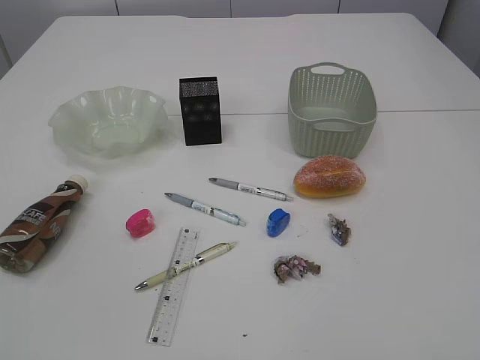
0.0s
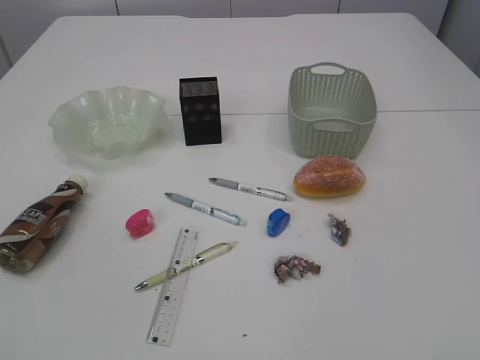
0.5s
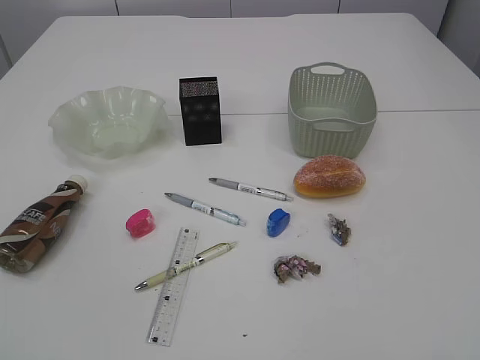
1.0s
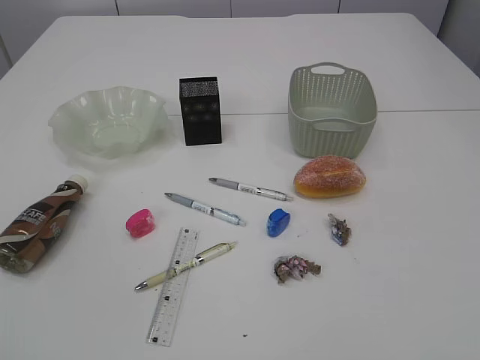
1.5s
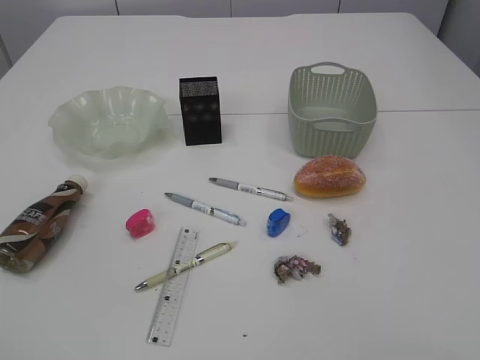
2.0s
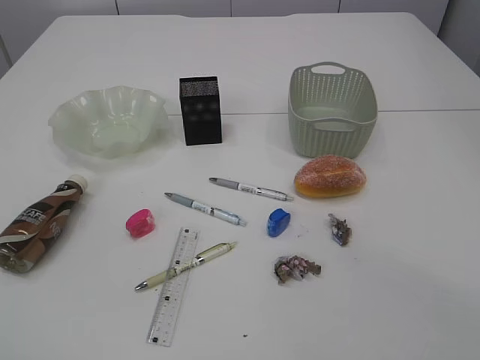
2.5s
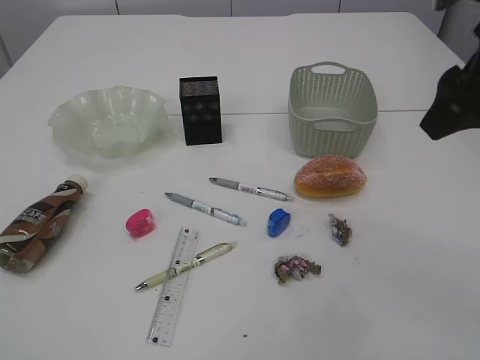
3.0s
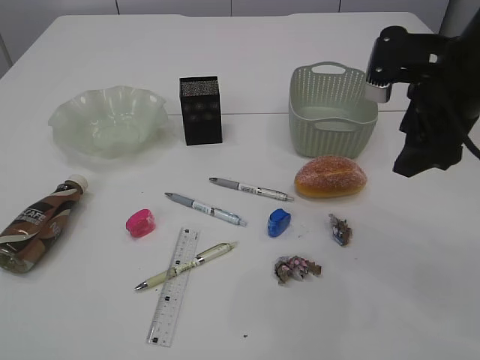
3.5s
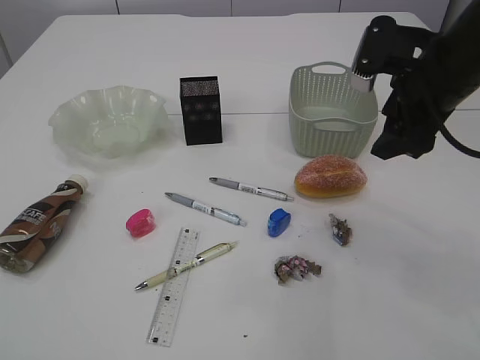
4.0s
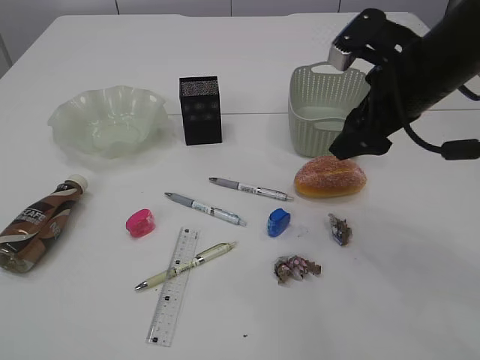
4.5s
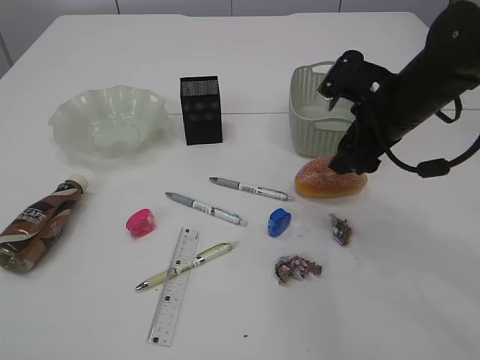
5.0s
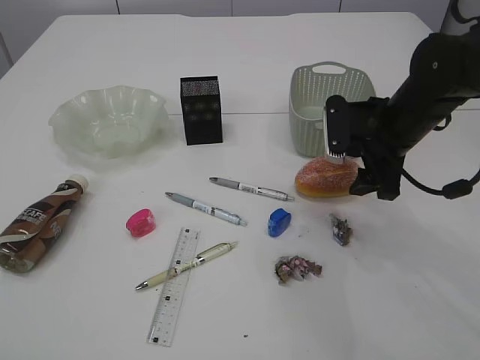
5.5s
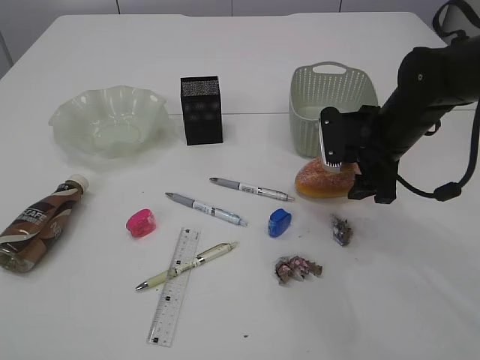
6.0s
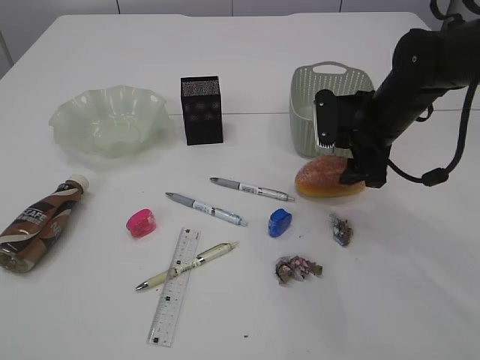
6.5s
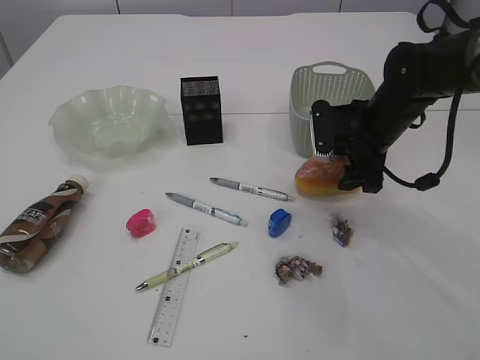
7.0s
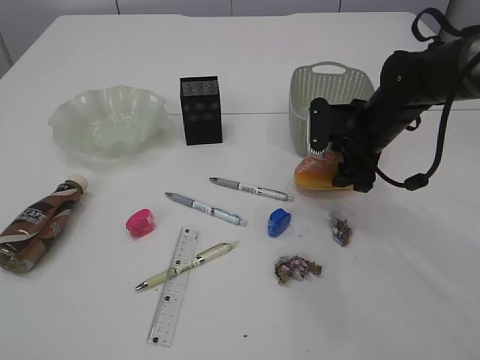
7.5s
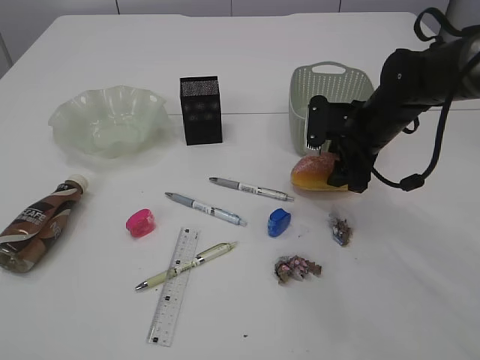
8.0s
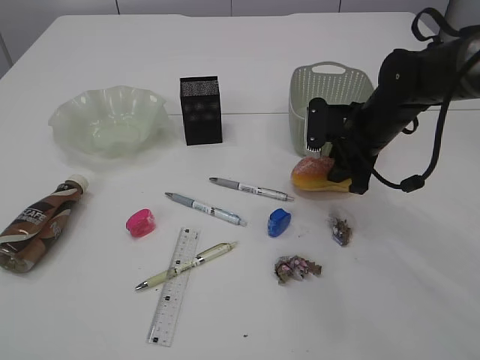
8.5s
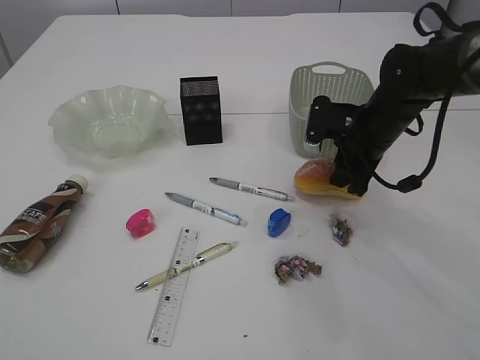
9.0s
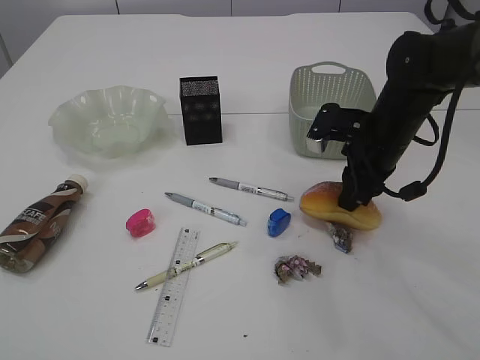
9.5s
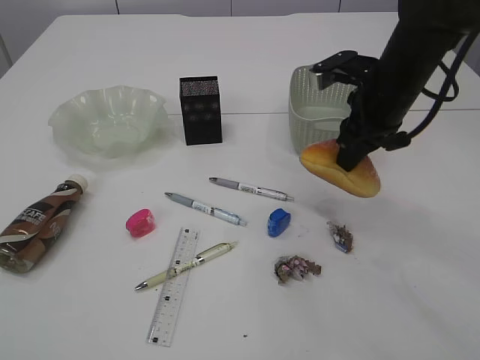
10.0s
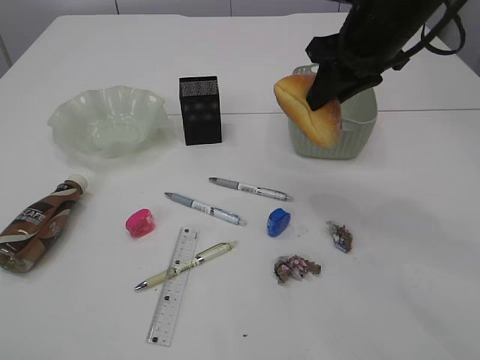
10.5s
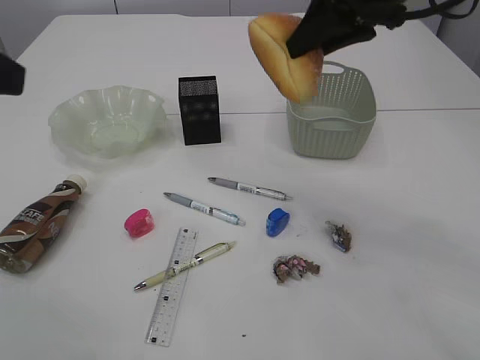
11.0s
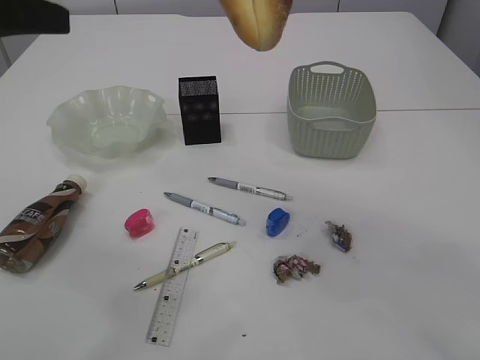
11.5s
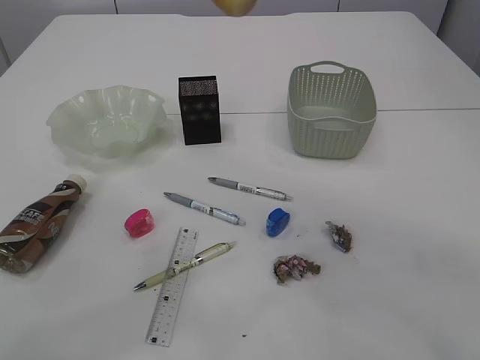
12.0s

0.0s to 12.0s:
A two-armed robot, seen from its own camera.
2.0s to 4.0s: The right gripper goes roughly 30 cm forward.
4.0s to 6.0s: The right gripper is displaced downward and forward by approximately 10 cm.
6.0s to 8.0s: The grippers make only small movements.
8.0s to 10.0s: The right gripper heads upward, covering some 5 cm, and closes.
10.0s to 12.0s: The left gripper heads forward, covering roughly 25 cm, while the right gripper heads upward, covering some 20 cm.

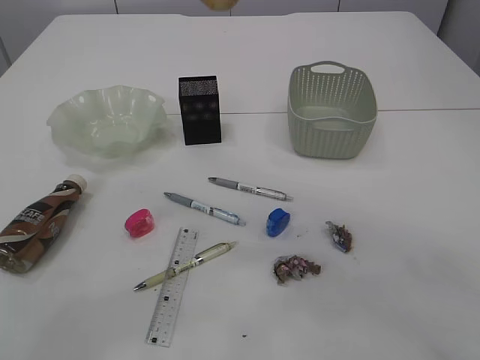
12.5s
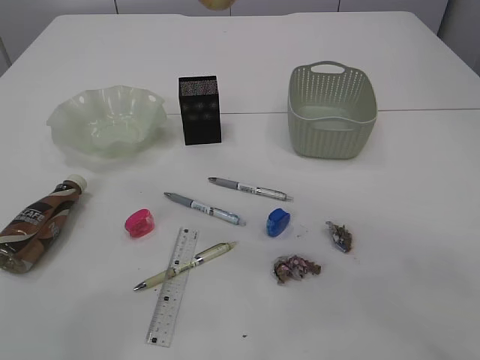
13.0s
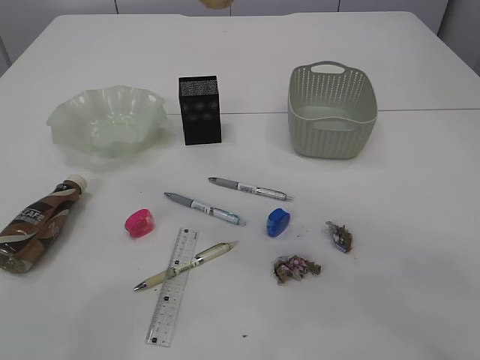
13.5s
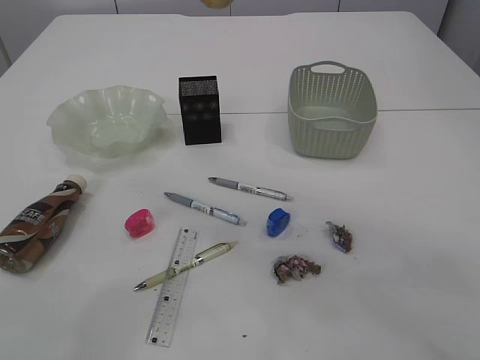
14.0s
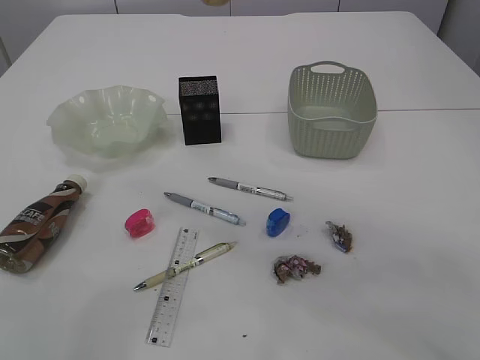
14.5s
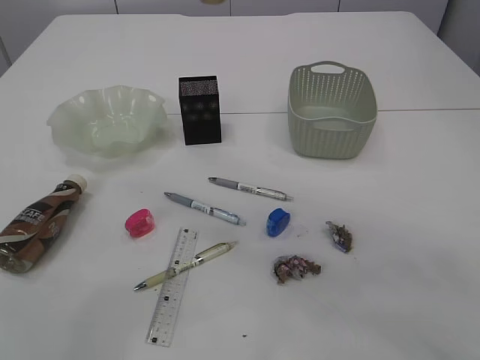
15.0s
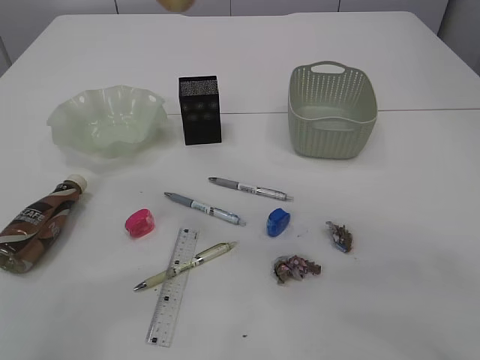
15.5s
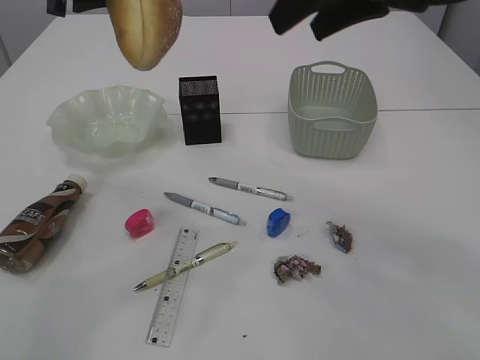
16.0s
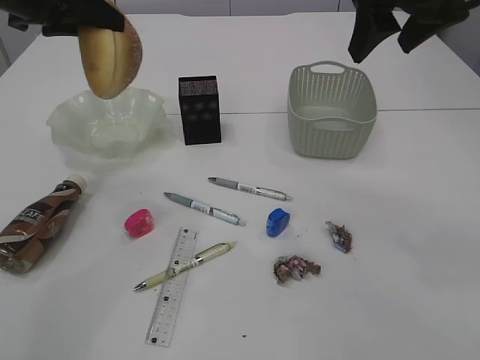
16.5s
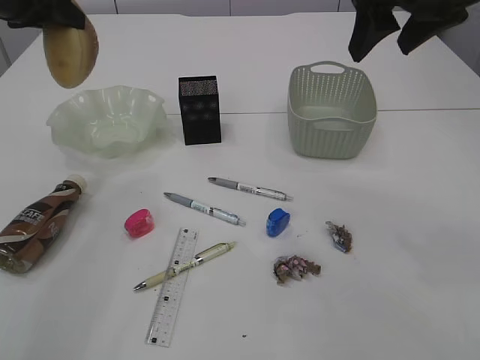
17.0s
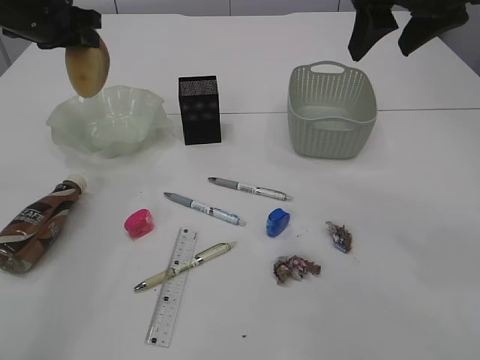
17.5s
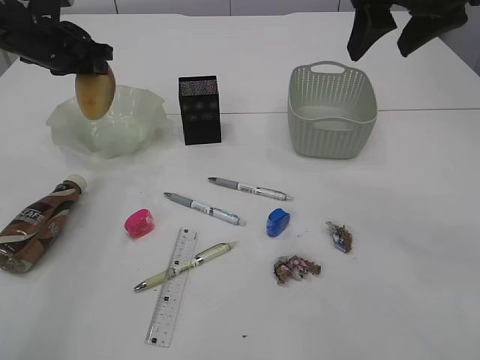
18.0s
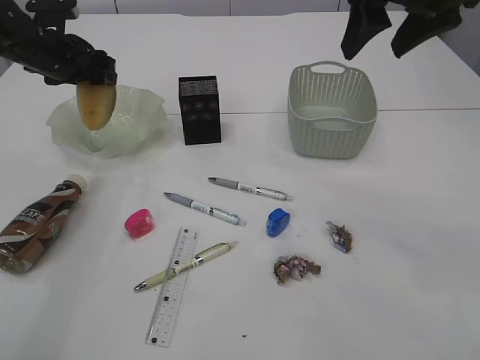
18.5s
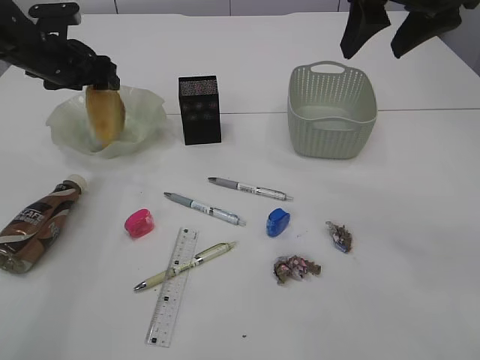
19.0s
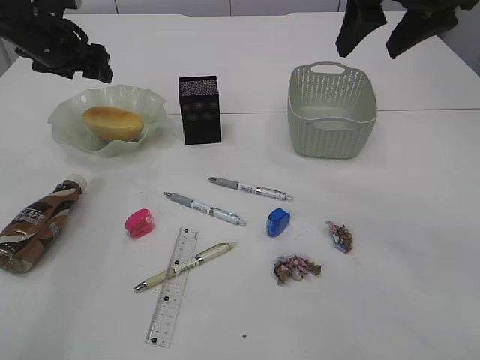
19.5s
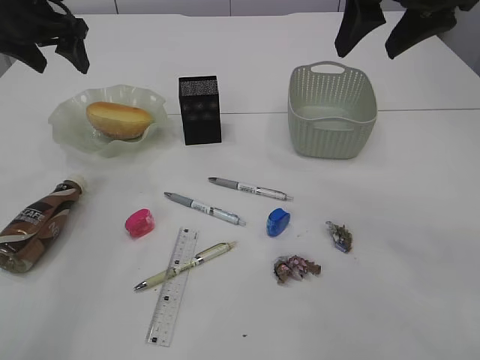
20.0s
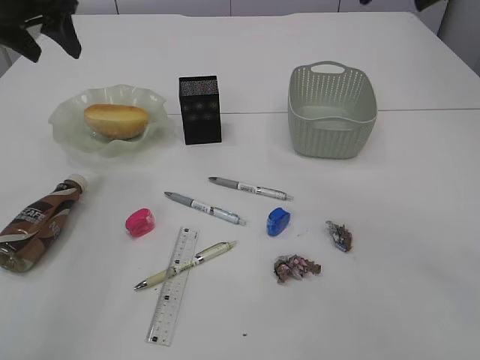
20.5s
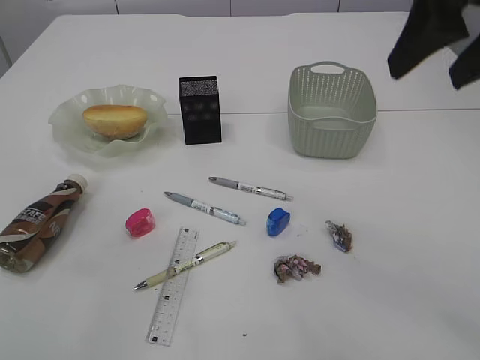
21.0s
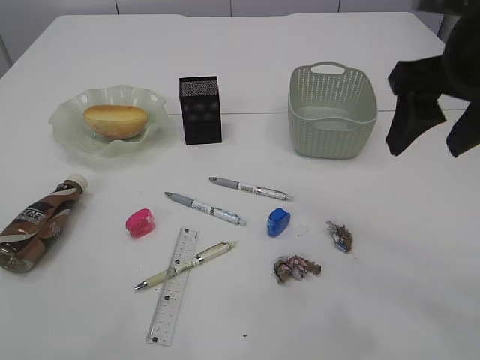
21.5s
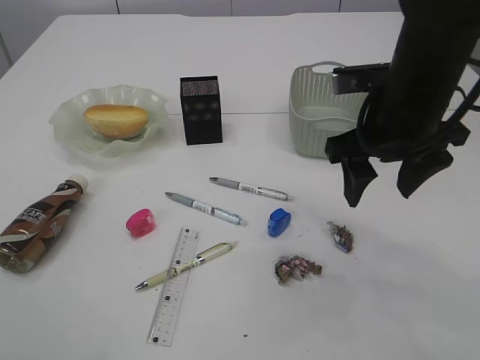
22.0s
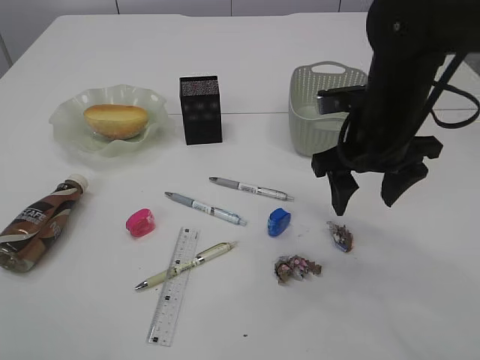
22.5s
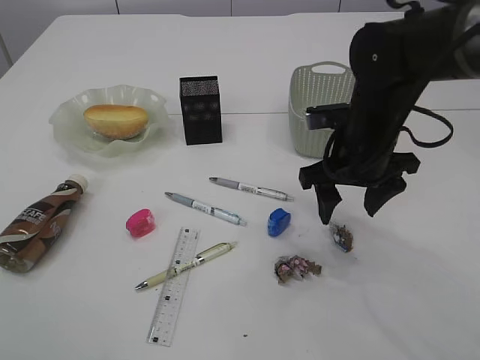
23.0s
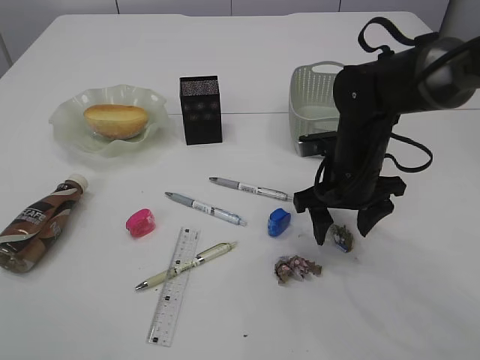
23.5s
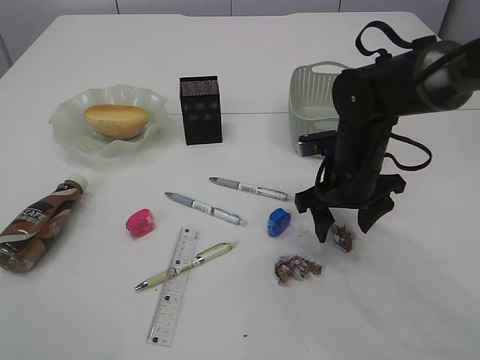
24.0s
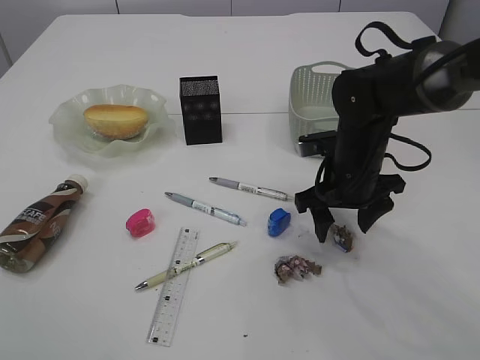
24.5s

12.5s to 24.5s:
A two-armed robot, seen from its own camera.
Step, 16.0s to 19.5s: place the bread in the plate.
14.5s to 16.5s: The left gripper moves to the left and downward, roughly 10 cm. The right gripper moves to the right and downward, some 10 cm.
16.5s to 18.5s: The left gripper goes about 15 cm downward and forward, and opens.
18.5s to 20.5s: The right gripper goes roughly 5 cm upward. The left gripper goes about 15 cm upward and backward.
20.5s to 22.5s: The left gripper heads backward and upward, covering roughly 30 cm; the right gripper heads downward, covering some 20 cm.
22.5s to 24.5s: The right gripper is displaced downward by approximately 10 cm.

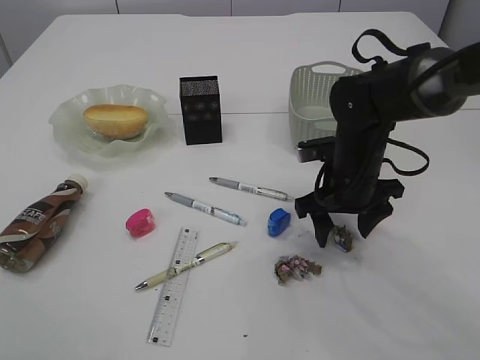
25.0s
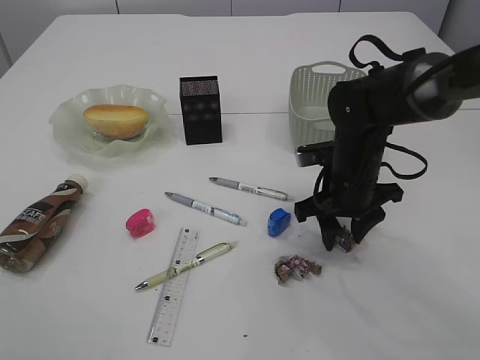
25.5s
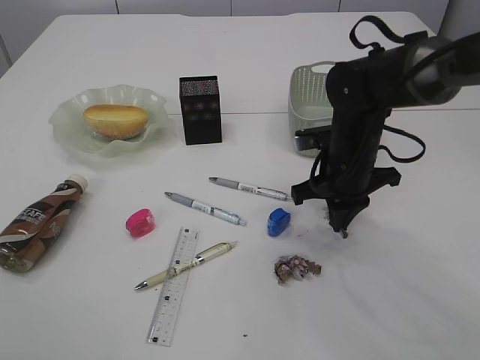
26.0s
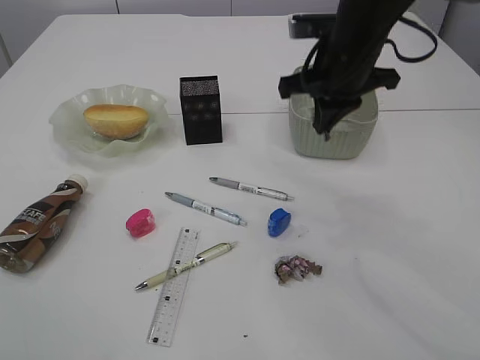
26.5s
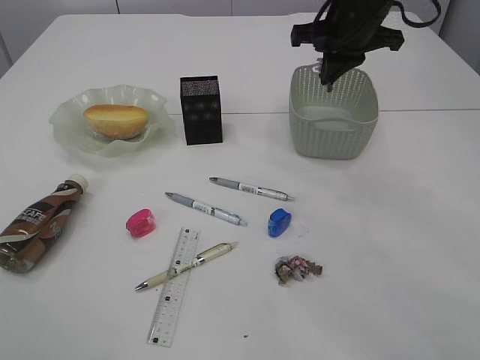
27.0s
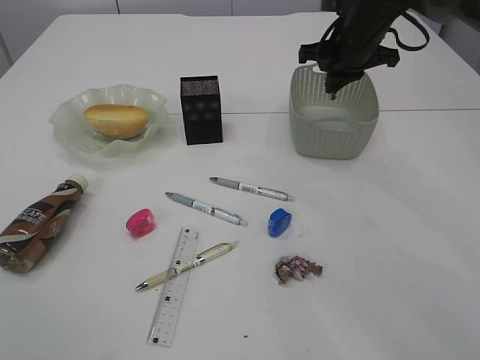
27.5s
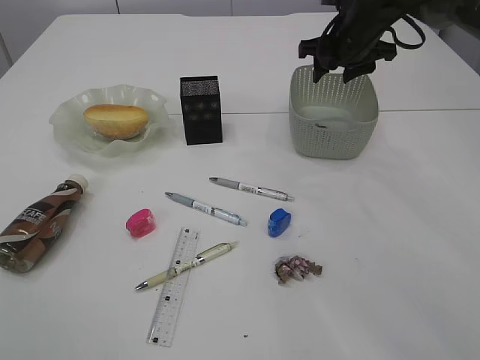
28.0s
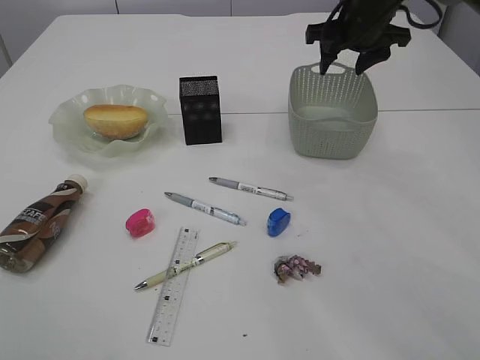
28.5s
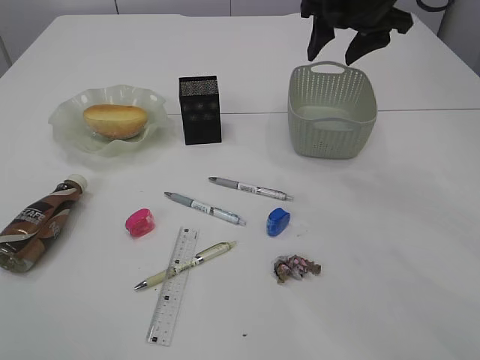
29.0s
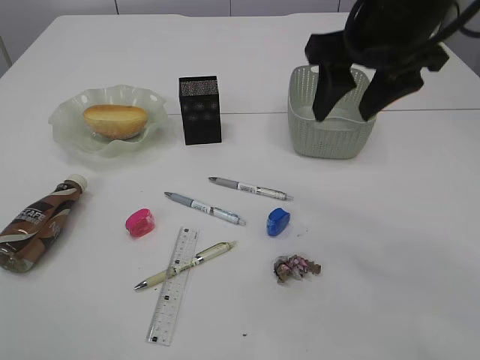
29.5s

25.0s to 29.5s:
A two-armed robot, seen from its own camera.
Step, 27.0s to 28.5s: Place the waste paper in the basket.
25.0s to 27.0s: The right gripper heads upward and forward, covering roughly 20 cm, and closes.
27.0s to 29.5s: The right gripper shifts roughly 10 cm backward, and opens up.
